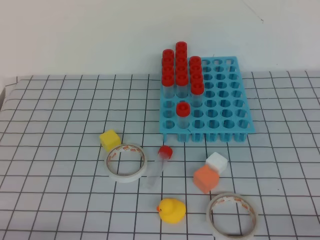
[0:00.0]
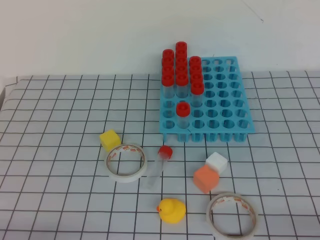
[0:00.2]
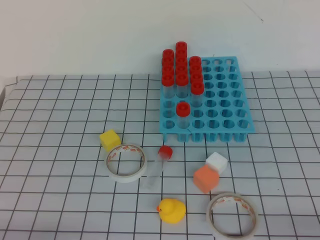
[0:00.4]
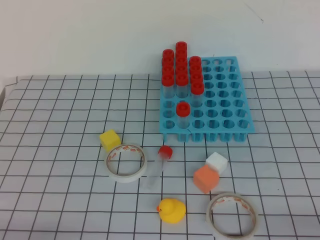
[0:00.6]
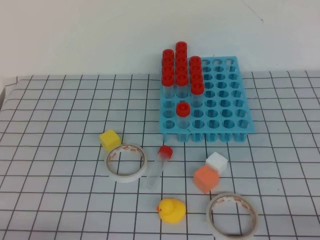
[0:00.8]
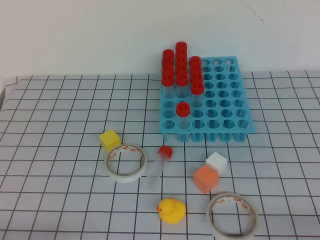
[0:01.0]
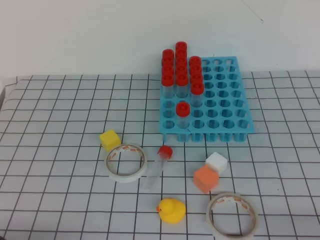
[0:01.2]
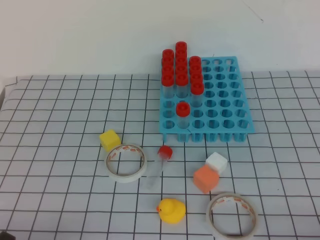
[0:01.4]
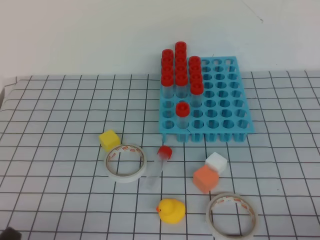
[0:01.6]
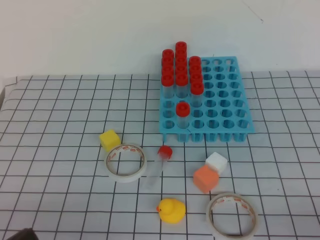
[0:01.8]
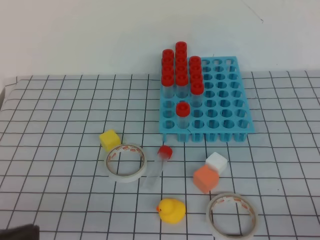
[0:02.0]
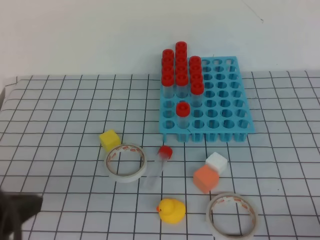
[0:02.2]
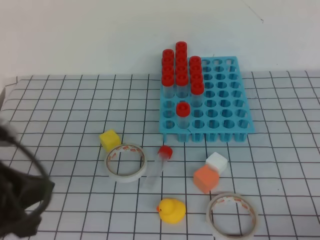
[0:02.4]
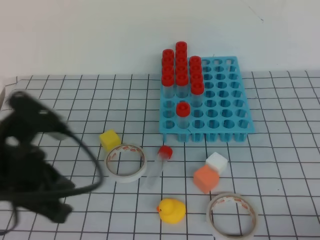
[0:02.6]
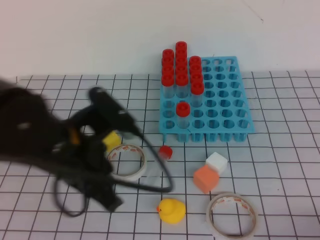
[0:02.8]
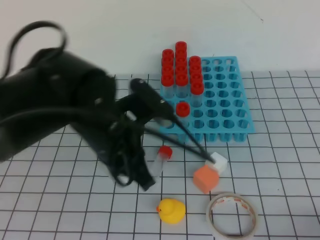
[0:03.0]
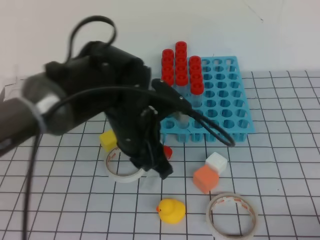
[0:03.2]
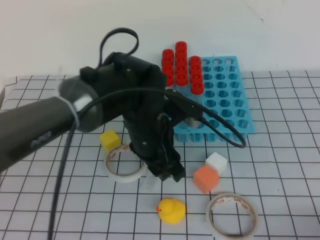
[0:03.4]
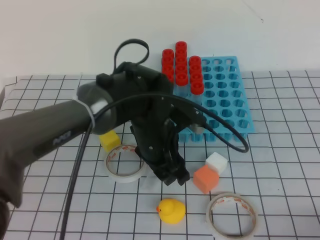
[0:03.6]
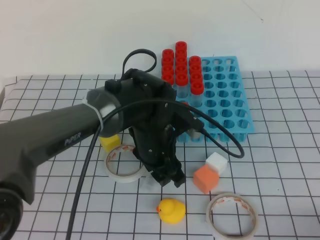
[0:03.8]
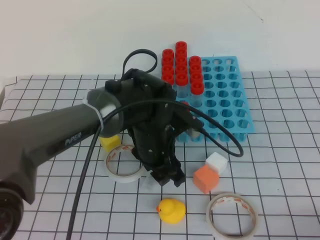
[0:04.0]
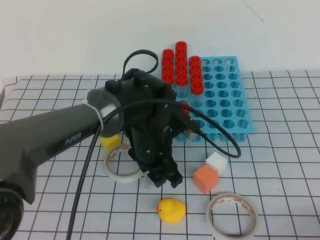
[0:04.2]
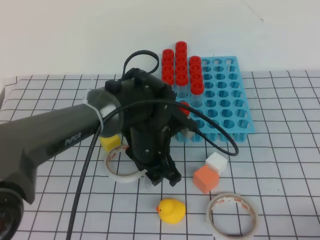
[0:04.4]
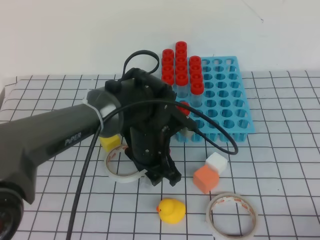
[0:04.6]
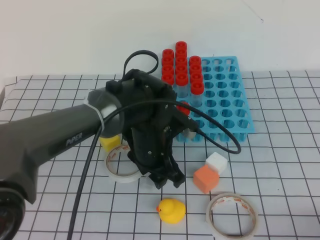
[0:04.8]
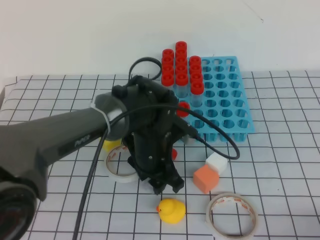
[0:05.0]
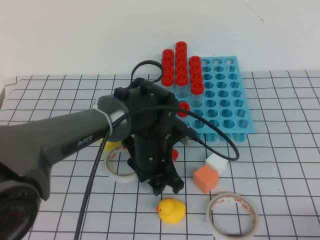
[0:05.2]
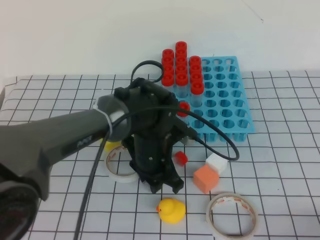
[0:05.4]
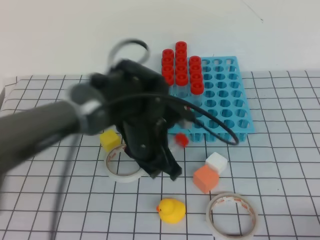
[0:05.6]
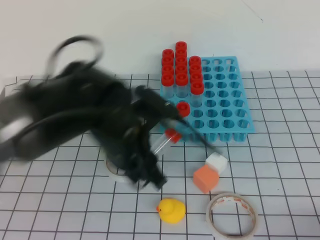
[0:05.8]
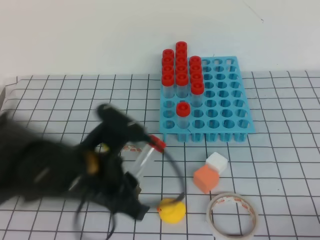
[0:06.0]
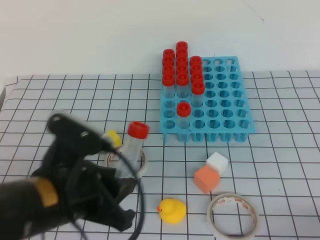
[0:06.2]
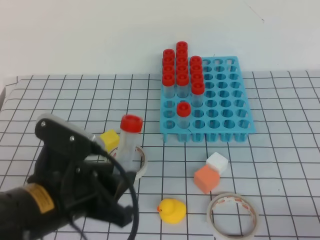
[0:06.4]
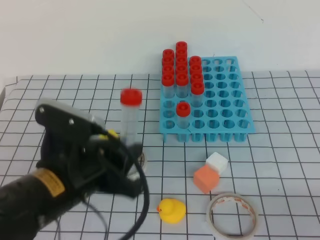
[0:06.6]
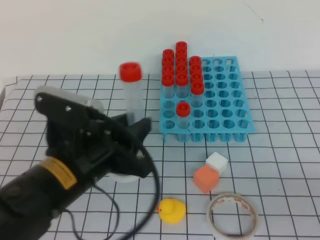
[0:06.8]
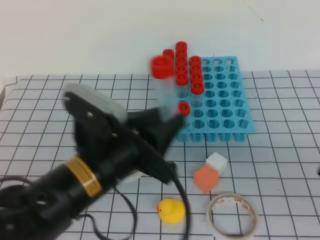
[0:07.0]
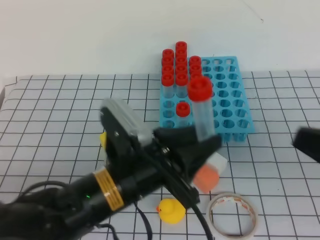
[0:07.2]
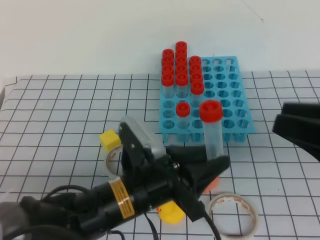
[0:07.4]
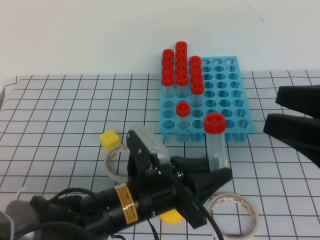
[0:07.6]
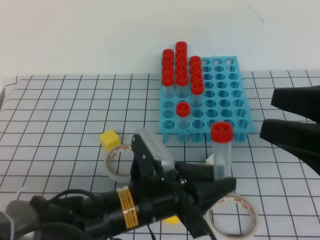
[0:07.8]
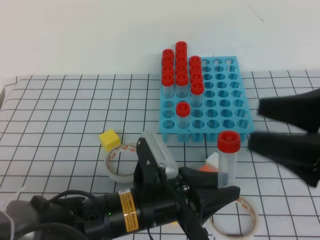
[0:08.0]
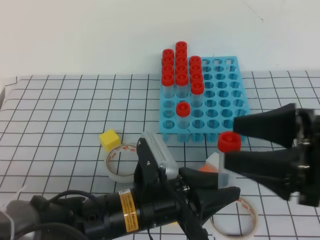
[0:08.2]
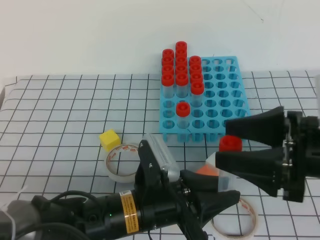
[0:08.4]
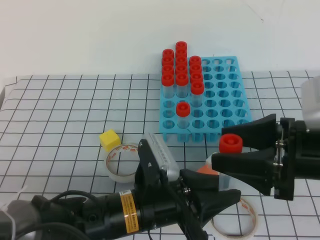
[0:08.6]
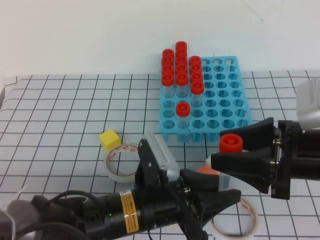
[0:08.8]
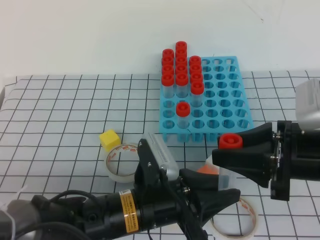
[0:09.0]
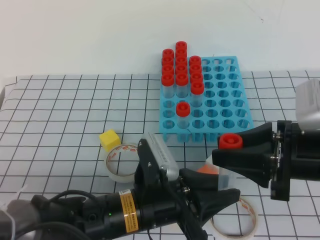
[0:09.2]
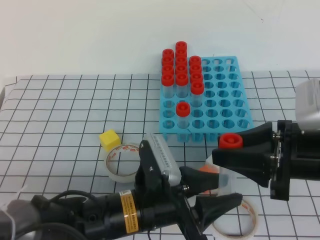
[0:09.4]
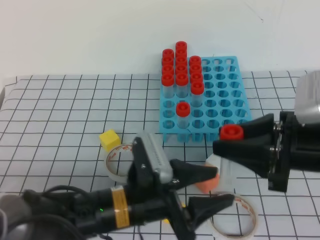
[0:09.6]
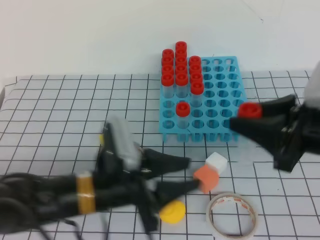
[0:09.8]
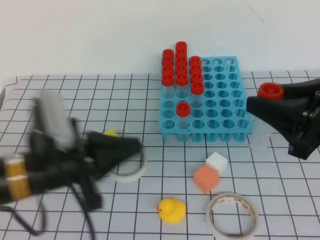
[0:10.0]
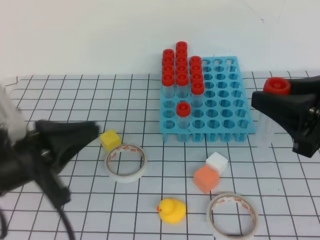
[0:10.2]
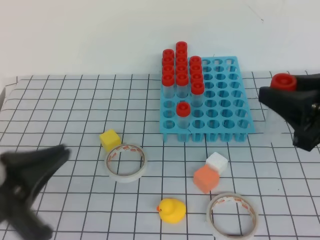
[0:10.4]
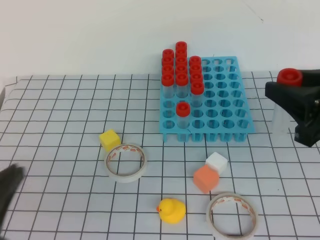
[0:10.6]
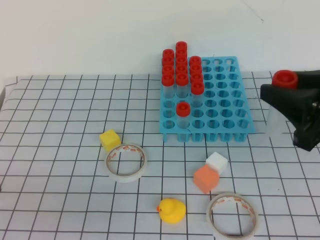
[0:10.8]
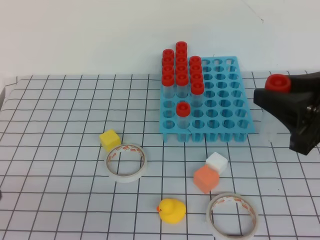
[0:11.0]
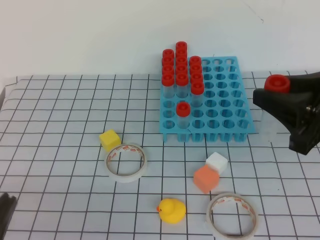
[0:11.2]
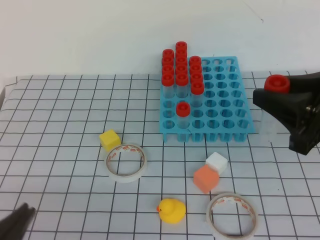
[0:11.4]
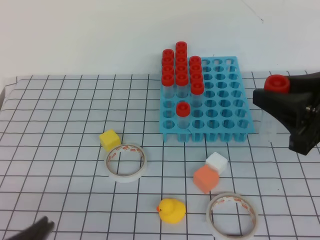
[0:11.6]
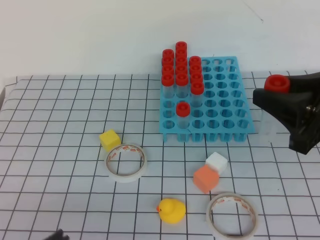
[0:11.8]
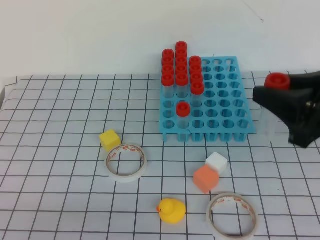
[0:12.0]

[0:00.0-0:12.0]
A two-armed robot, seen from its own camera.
0:01.6 to 0:03.0: The left gripper is displaced forward, to the right and upward by some 30 cm.
0:03.0 to 0:04.4: The left gripper moves downward, forward and to the right, roughly 15 cm, and opens up.
0:04.4 to 0:06.0: The left gripper goes roughly 15 cm backward, upward and to the left, and closes its fingers.
0:06.0 to 0:07.6: The left gripper goes approximately 5 cm downward, while the right gripper moves forward, upward and to the left, some 20 cm, and opens up.
0:07.6 to 0:09.0: The right gripper shifts some 5 cm downward.
0:09.0 to 0:10.4: The left gripper shifts some 20 cm to the left and upward, and closes its fingers. The right gripper moves upward, approximately 5 cm.
0:10.4 to 0:12.0: The left gripper heads backward and downward, covering some 10 cm.

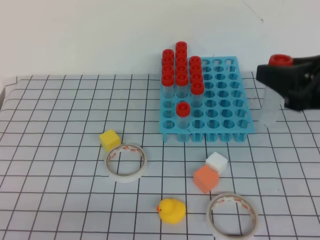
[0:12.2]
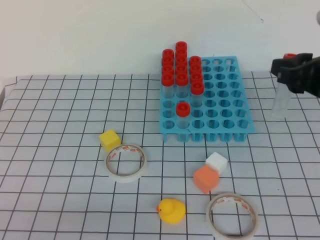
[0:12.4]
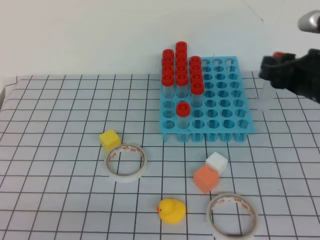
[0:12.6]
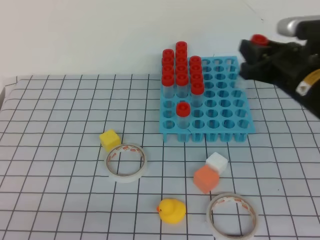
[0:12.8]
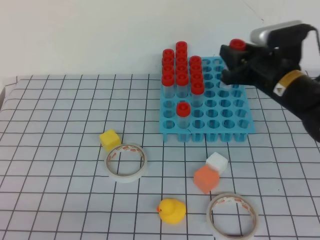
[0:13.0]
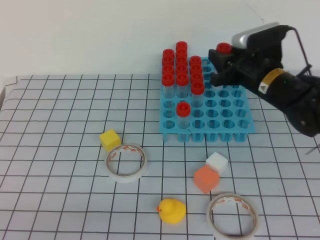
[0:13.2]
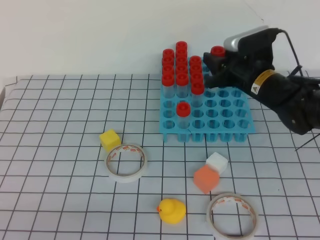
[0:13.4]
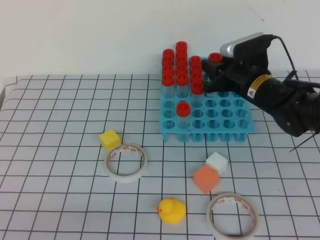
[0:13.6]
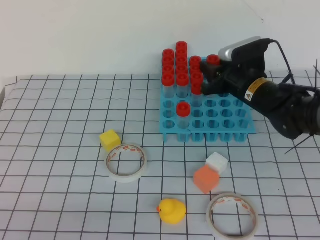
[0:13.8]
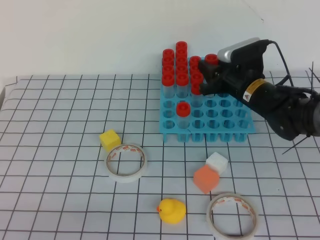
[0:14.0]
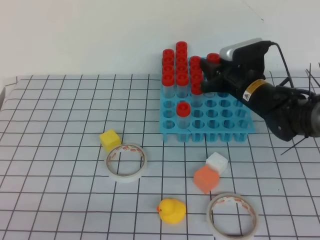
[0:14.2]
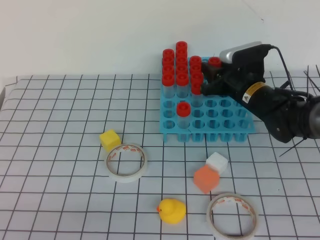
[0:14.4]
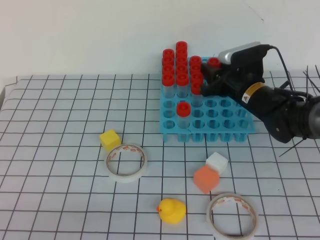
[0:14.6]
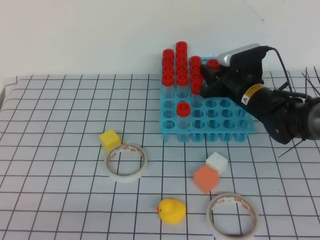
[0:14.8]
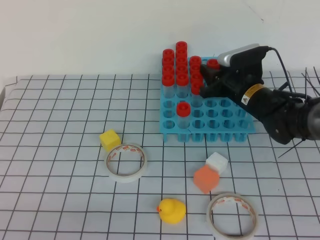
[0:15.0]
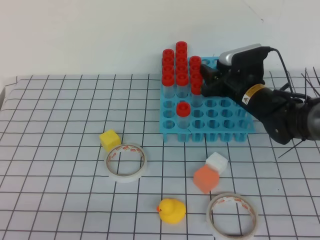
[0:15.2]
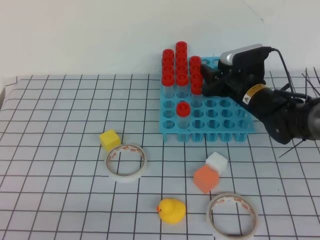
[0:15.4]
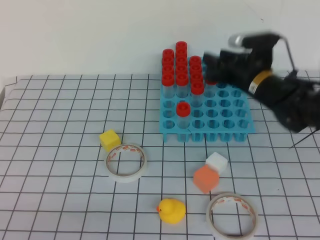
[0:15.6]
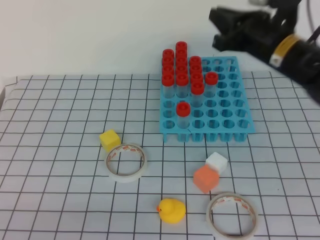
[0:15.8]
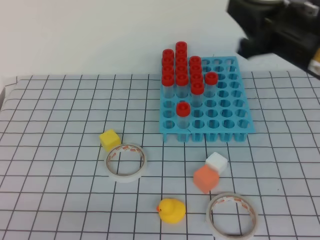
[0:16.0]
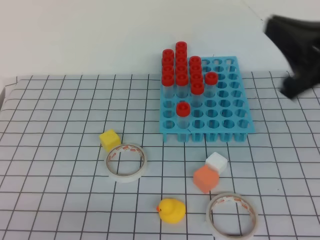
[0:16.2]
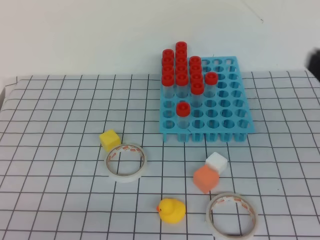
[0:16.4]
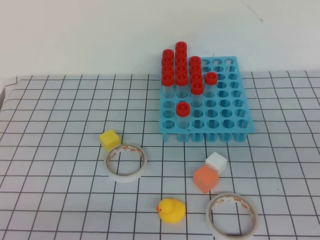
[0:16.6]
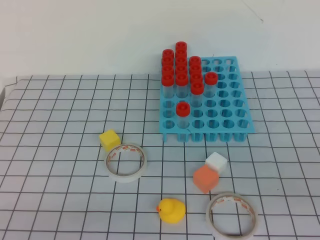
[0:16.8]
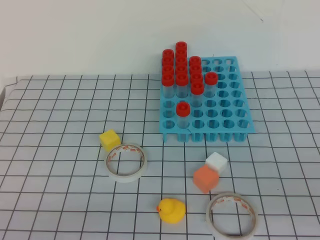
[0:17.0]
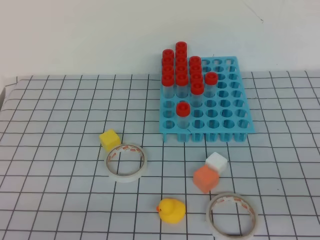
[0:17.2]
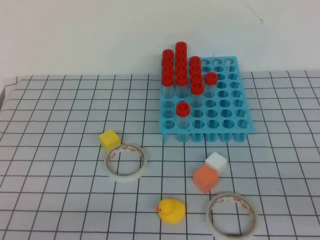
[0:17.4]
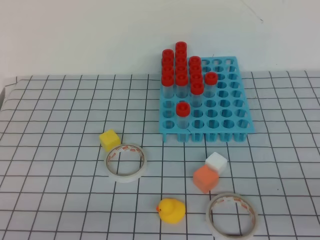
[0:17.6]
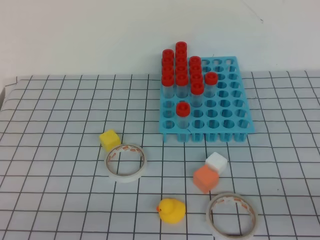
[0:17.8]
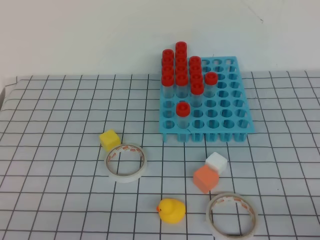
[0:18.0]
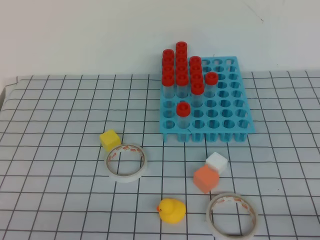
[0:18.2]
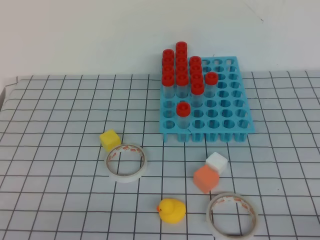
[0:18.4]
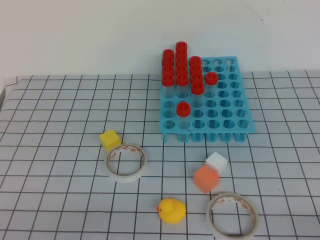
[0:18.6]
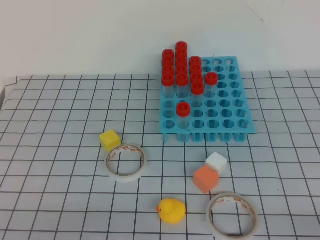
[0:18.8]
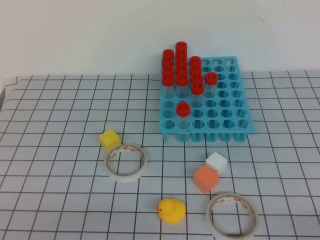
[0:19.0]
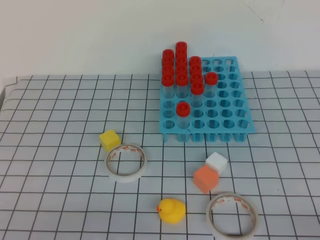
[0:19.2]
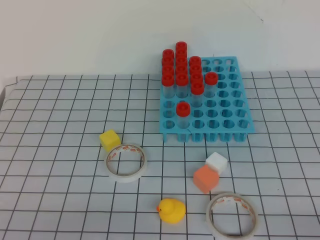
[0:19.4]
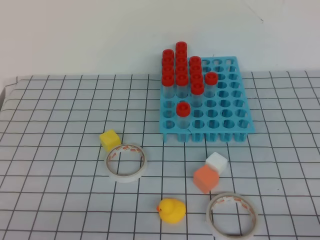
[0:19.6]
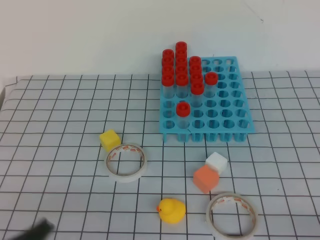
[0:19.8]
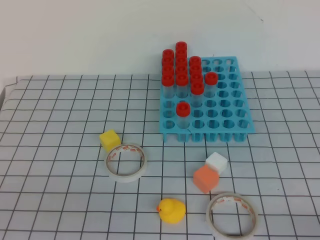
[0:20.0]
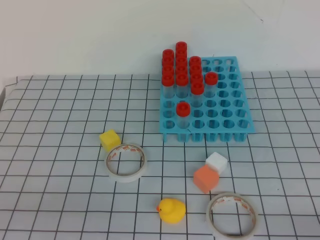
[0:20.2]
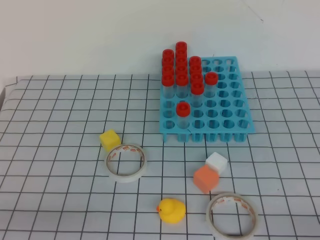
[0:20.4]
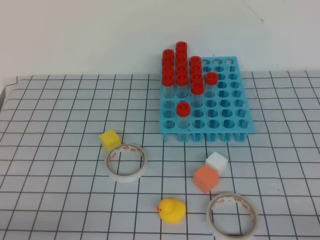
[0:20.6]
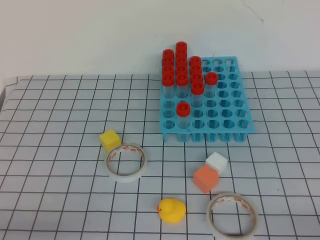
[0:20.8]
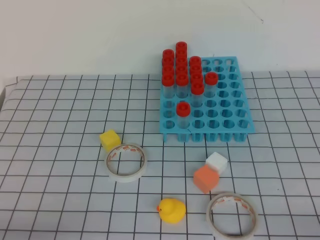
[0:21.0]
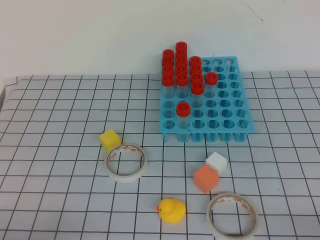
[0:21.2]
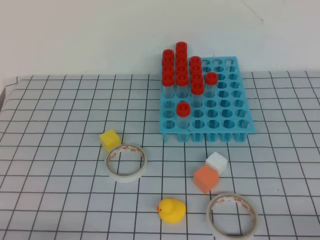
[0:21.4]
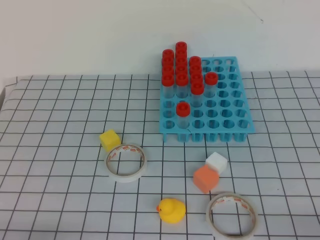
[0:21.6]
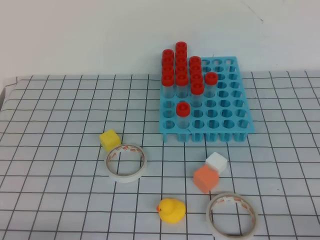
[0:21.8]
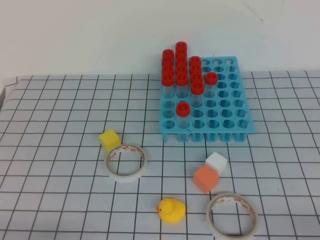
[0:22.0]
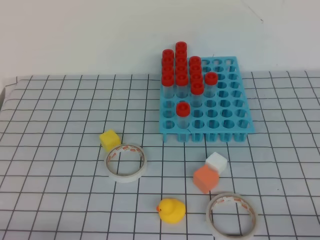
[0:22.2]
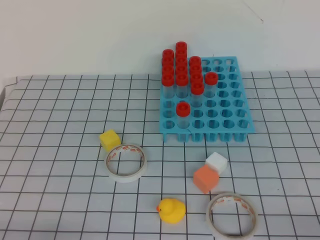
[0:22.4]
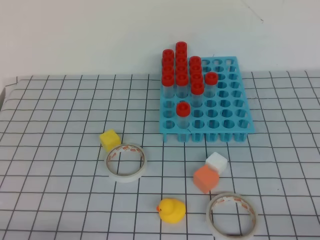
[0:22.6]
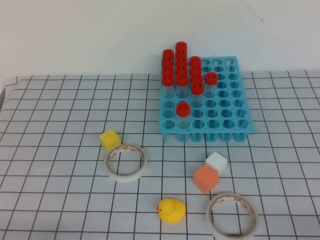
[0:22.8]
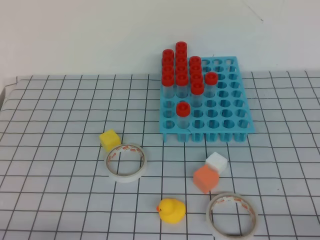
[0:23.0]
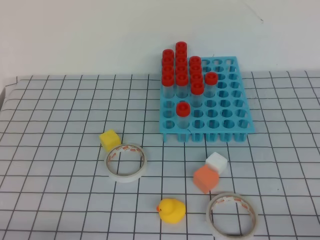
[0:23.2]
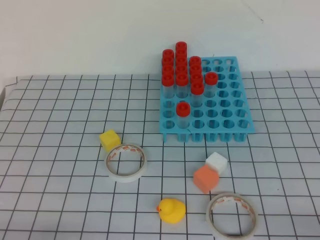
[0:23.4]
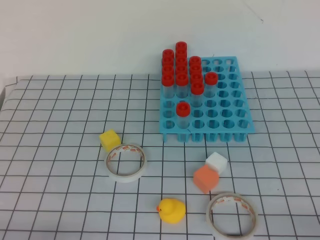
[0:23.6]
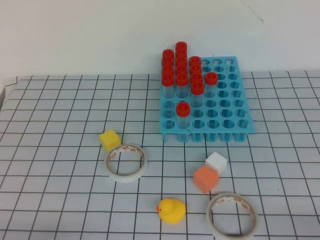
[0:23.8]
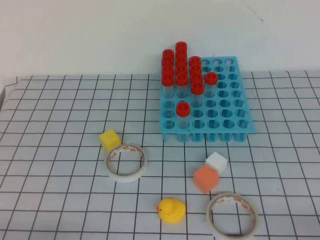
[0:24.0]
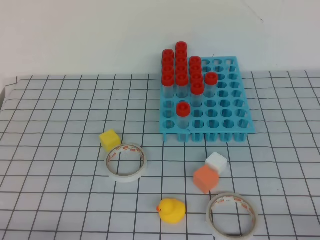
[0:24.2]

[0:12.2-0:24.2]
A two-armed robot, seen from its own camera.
0:12.2 to 0:13.8: The right gripper is displaced forward and downward by some 25 cm.
0:13.8 to 0:15.2: The grippers make only small movements.
0:15.2 to 0:16.6: The right gripper moves backward and upward, roughly 35 cm, and closes.
0:16.6 to 0:18.2: The right gripper heads downward, to the right and backward, covering approximately 20 cm.
0:19.8 to 0:21.2: The left gripper moves downward and to the left, roughly 10 cm.
0:22.6 to 0:24.2: Both grippers stay about where they are.
